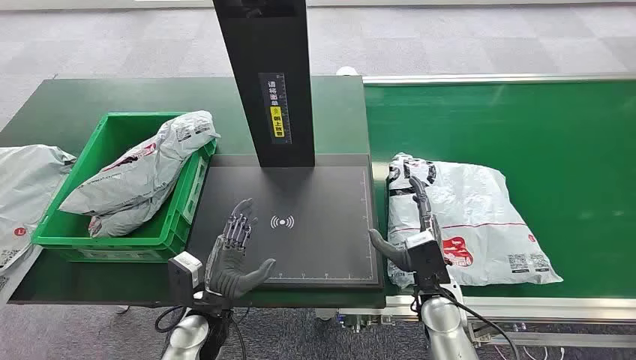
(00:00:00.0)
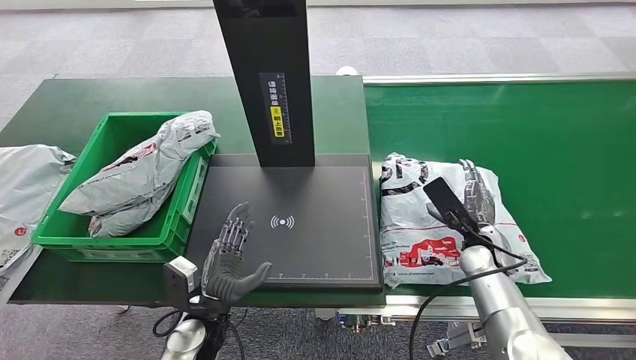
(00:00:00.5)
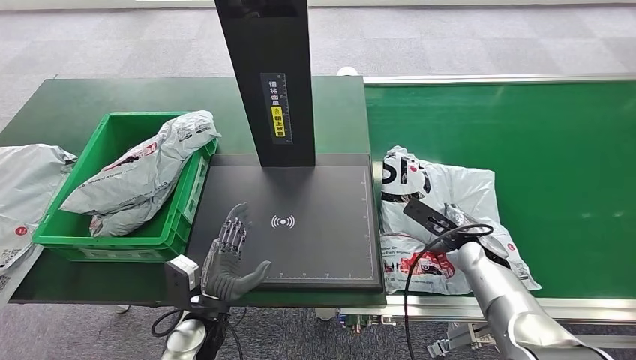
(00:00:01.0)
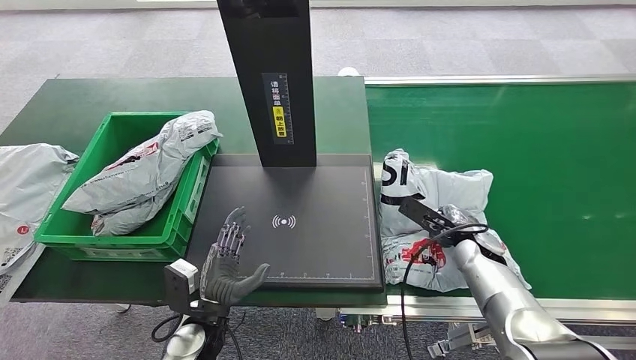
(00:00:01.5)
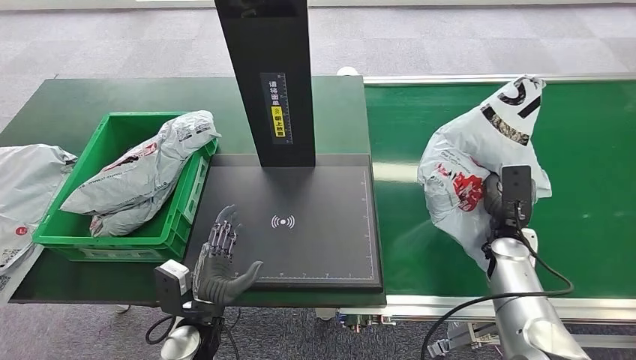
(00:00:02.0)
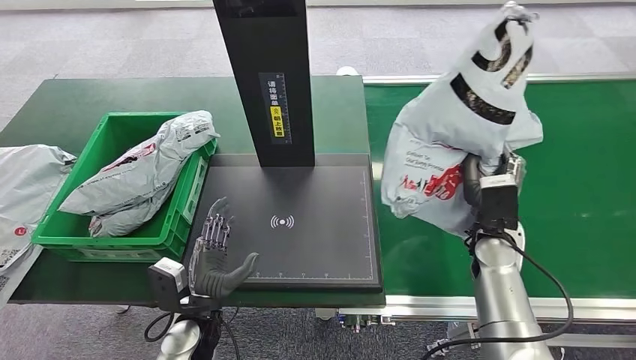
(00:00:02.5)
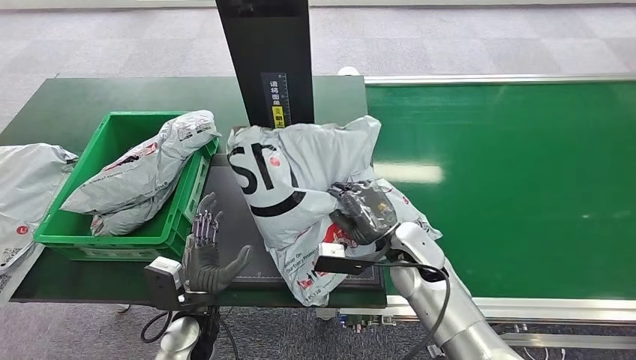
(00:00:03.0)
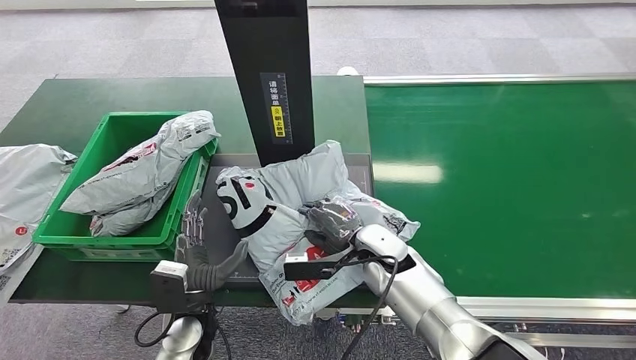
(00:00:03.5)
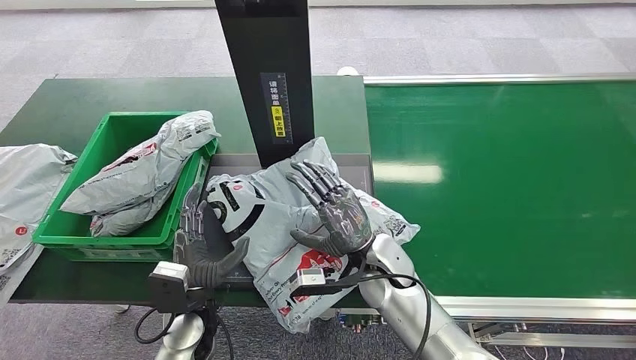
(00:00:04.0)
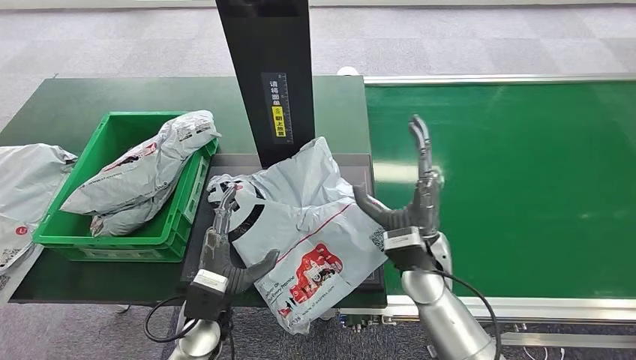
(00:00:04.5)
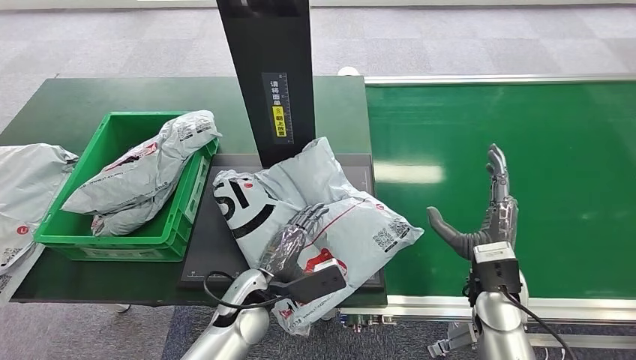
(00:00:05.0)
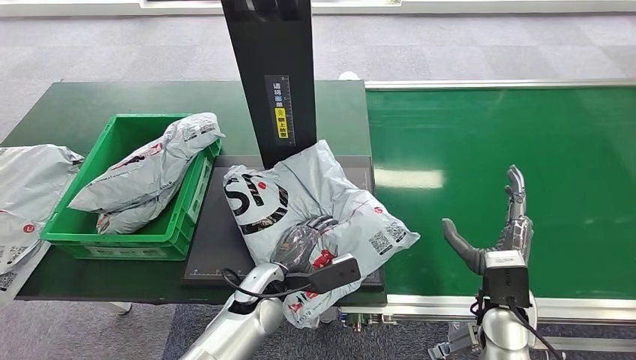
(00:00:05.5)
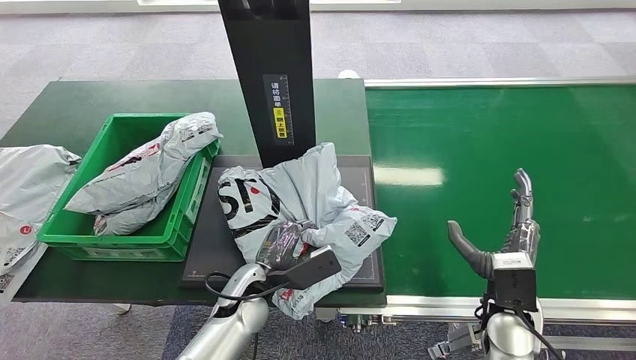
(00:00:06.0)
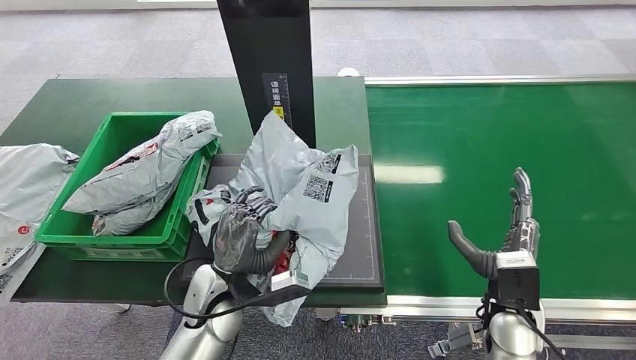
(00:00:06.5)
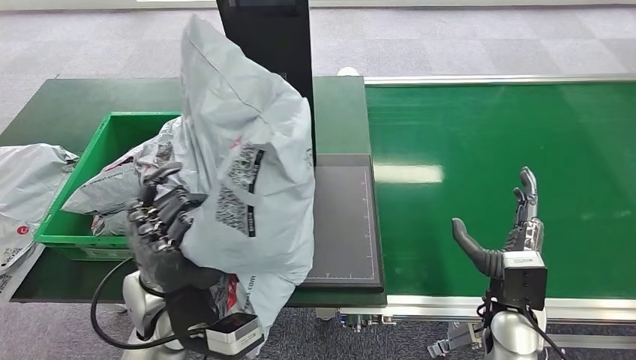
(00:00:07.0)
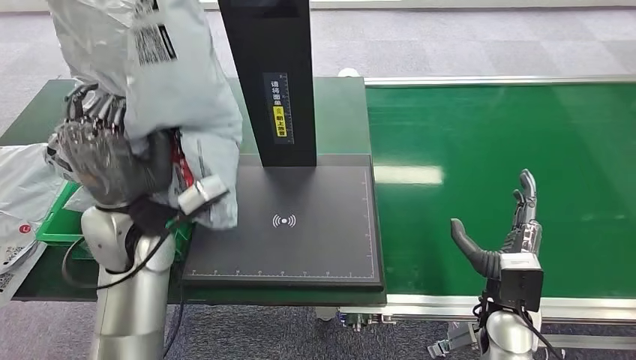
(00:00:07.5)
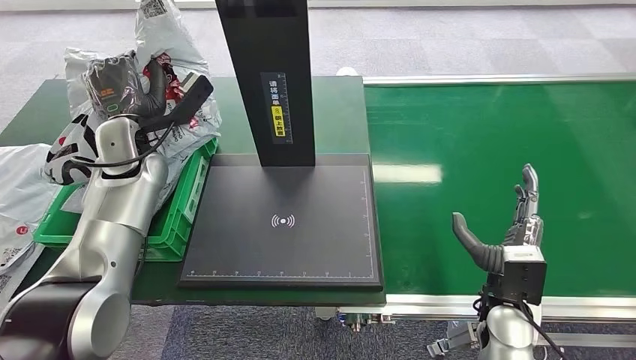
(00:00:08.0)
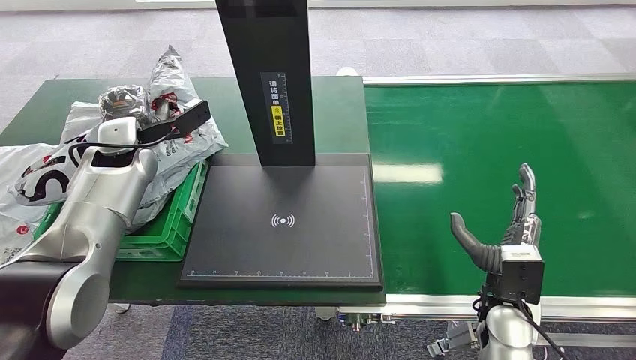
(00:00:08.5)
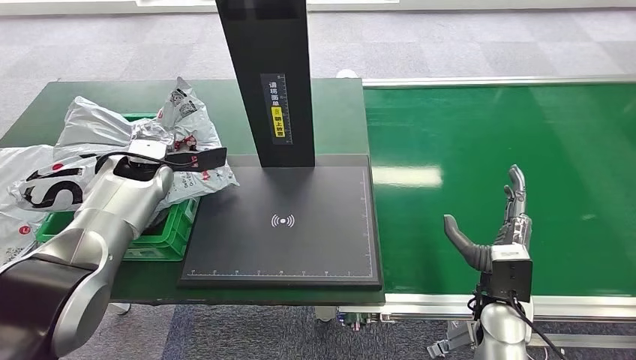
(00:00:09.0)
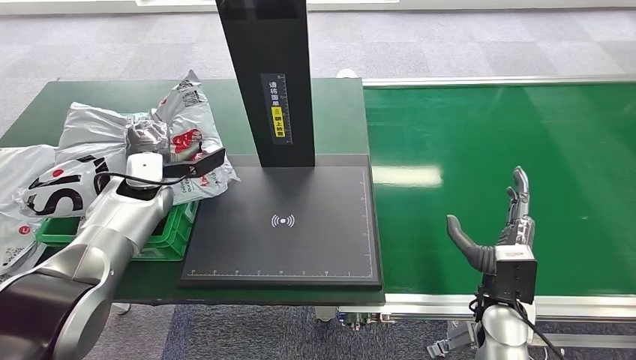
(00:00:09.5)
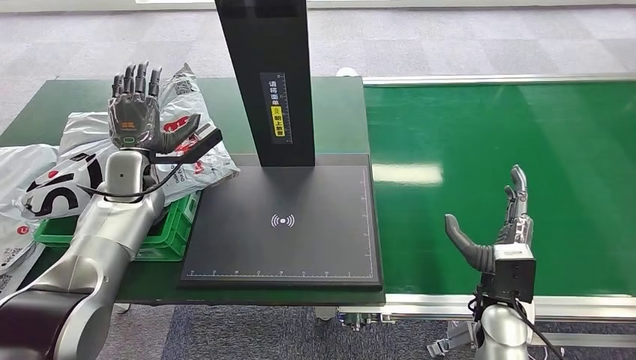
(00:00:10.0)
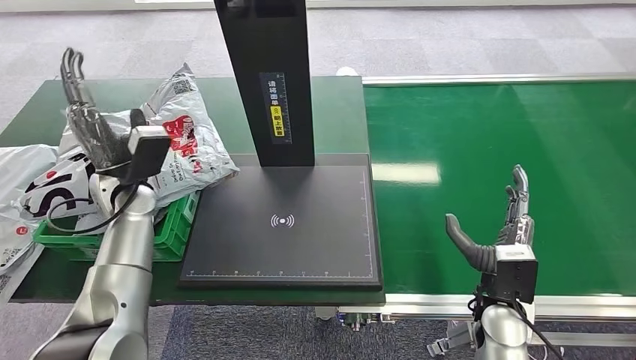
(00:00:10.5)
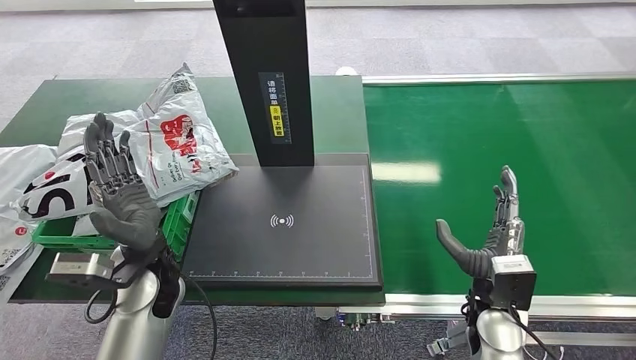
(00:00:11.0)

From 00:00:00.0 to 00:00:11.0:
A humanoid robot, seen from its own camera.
Step, from 00:00:00.0 to 00:00:02.0: Pick up the package from the conveyor belt.
Step, from 00:00:02.5 to 00:00:04.0: Place the package onto the inbound machine.
Step, from 00:00:04.5 to 00:00:07.0: Pick up the package from the inbound machine.
Step, from 00:00:07.5 to 00:00:11.0: Place the package into the parcel locker.
